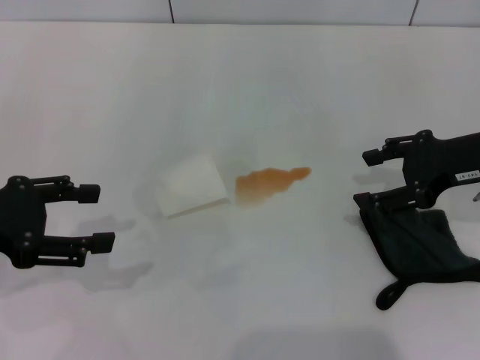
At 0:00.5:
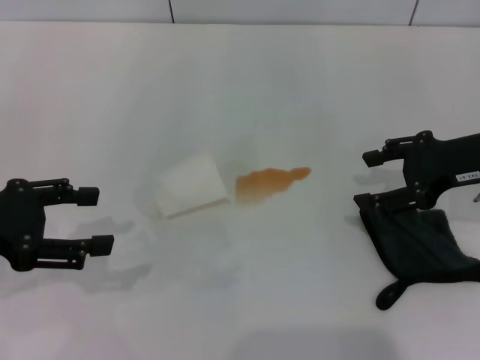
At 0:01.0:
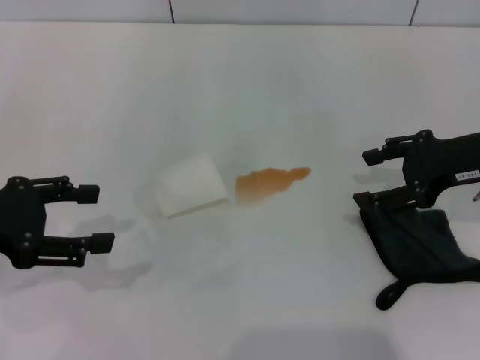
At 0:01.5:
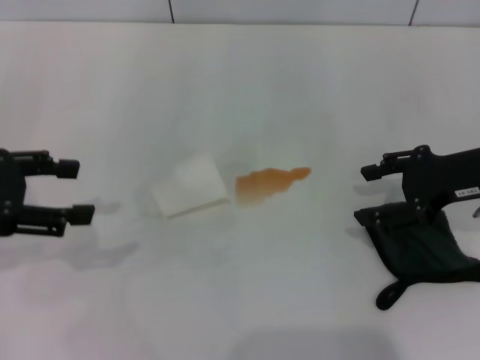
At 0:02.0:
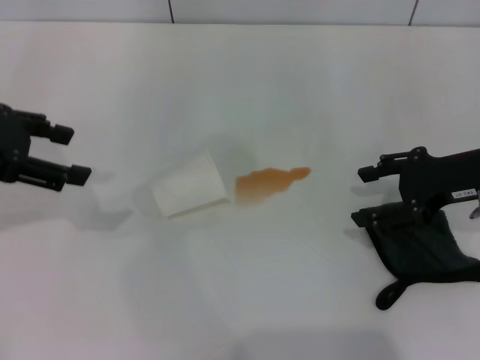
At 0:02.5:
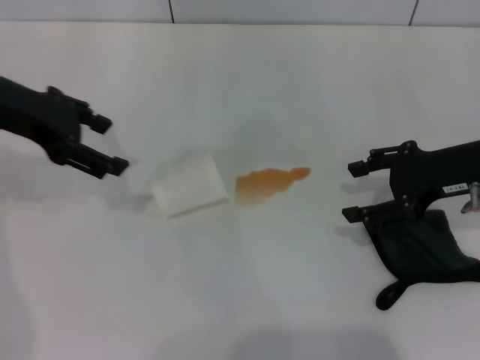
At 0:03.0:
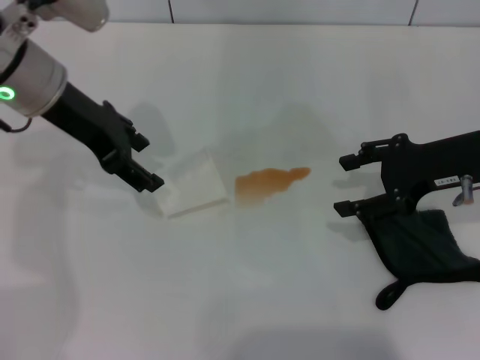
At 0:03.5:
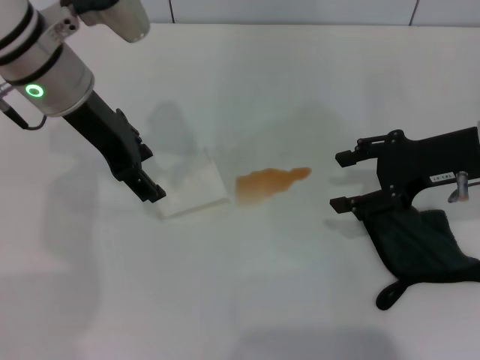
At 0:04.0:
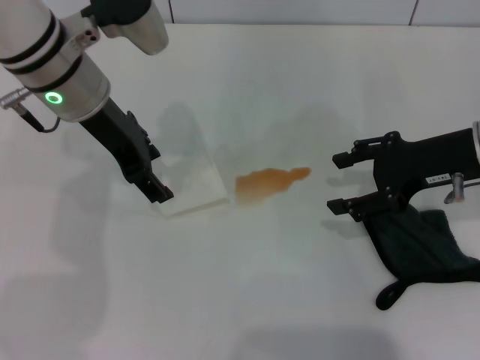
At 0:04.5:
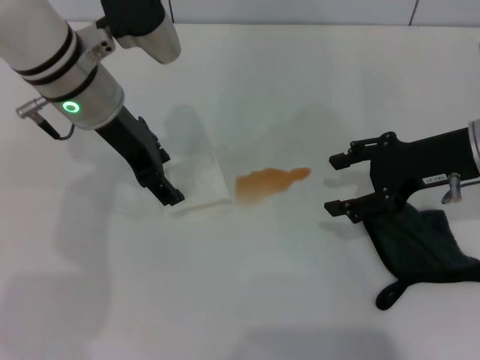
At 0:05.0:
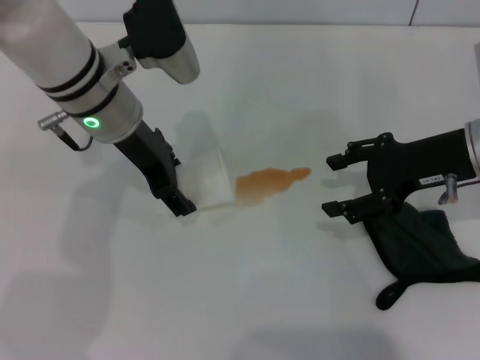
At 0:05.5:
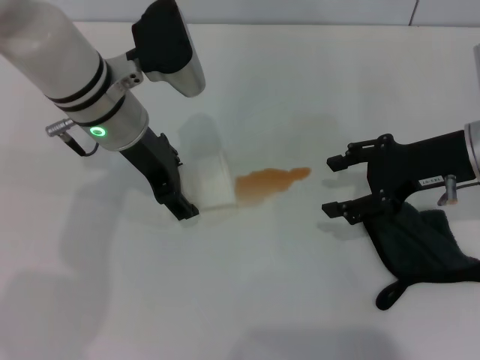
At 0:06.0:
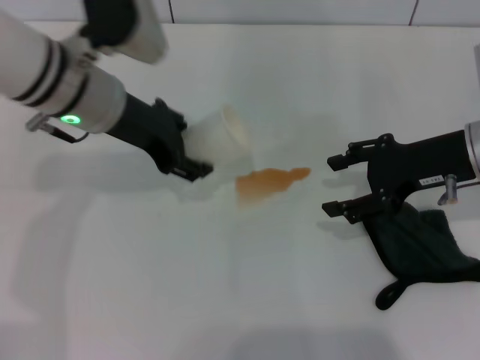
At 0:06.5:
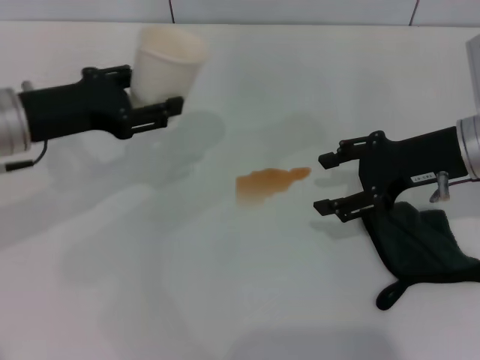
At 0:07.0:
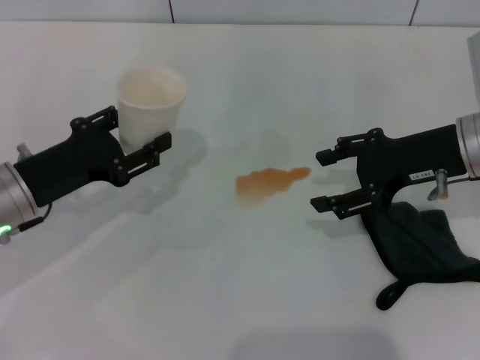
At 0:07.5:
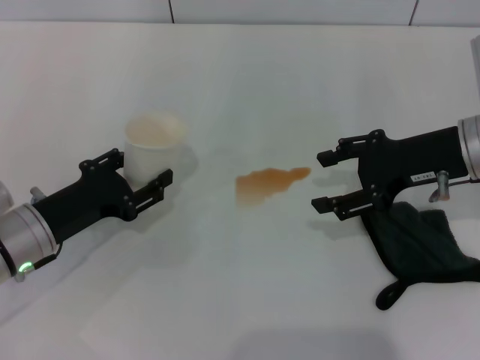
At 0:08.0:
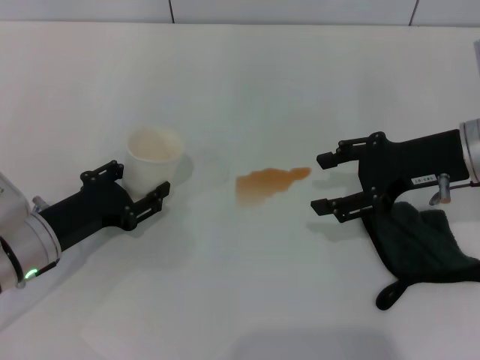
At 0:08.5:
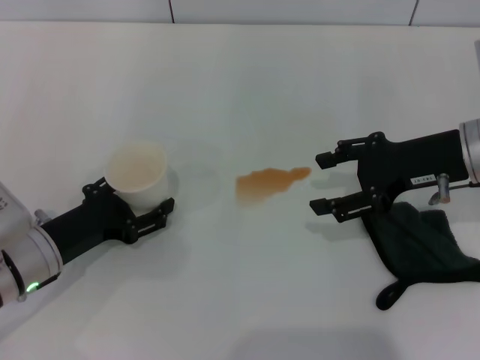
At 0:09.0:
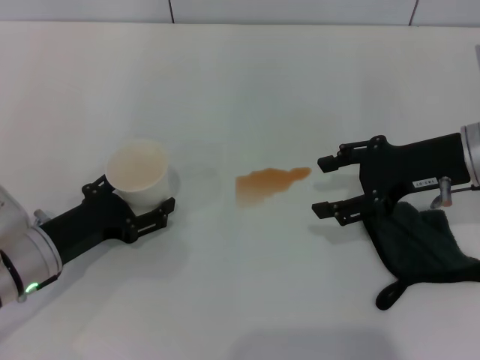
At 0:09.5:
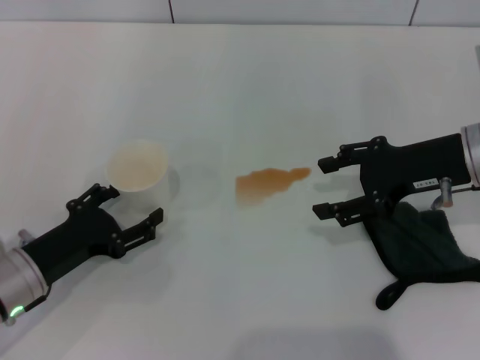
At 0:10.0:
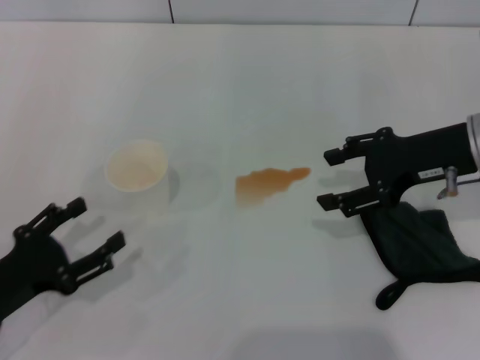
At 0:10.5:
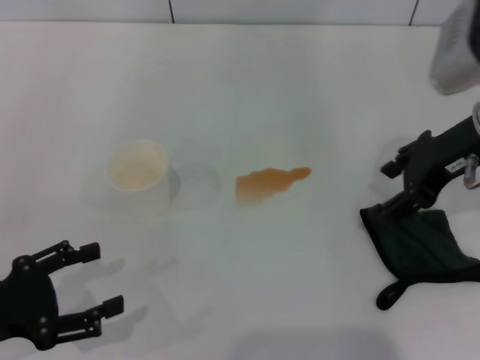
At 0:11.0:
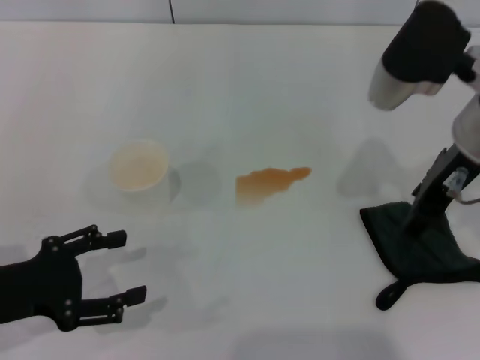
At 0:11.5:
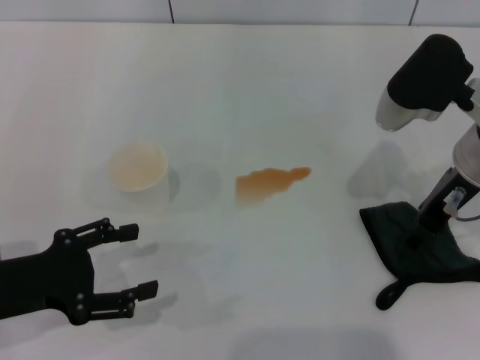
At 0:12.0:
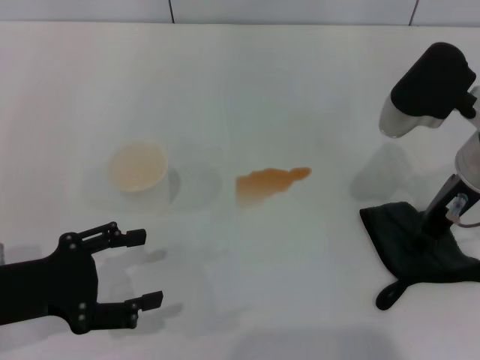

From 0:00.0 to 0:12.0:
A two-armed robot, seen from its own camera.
Step, from 0:00.0 to 0:05.0: Grasp the paper cup with the left gripper.
Step, from 0:06.0 to 0:09.5: Stand the paper cup upright with the left gripper.
From 0:00.0 to 0:02.0: The left gripper heads forward and upward, covering approximately 10 cm.
From 0:02.0 to 0:04.0: The left gripper heads to the right and forward, covering about 15 cm.
From 0:04.0 to 0:06.0: The left gripper closes its fingers.
From 0:06.0 to 0:08.0: The left gripper moves downward, backward and to the left, approximately 20 cm.
From 0:08.0 to 0:10.0: The left gripper goes about 10 cm backward and to the left, and opens.
From 0:10.0 to 0:12.0: The left gripper travels upward by approximately 5 cm.

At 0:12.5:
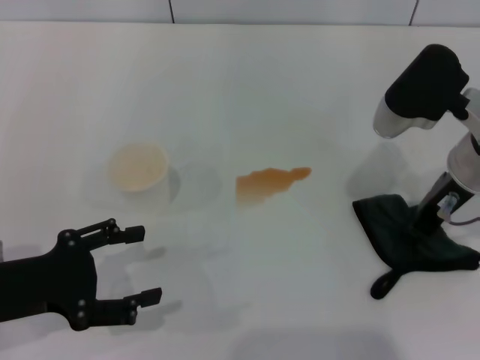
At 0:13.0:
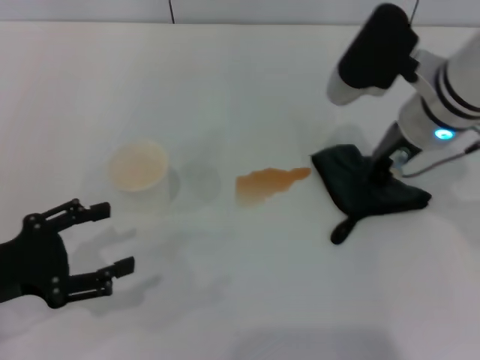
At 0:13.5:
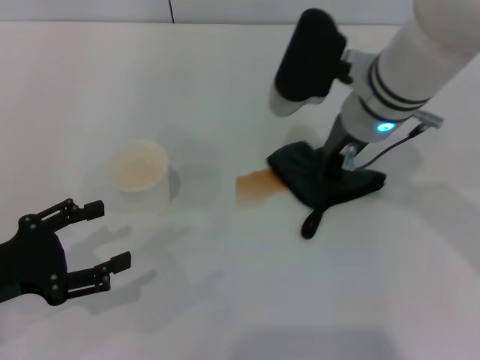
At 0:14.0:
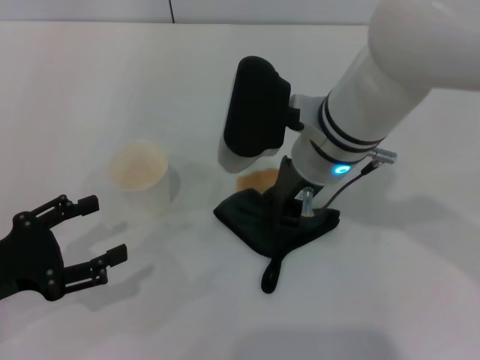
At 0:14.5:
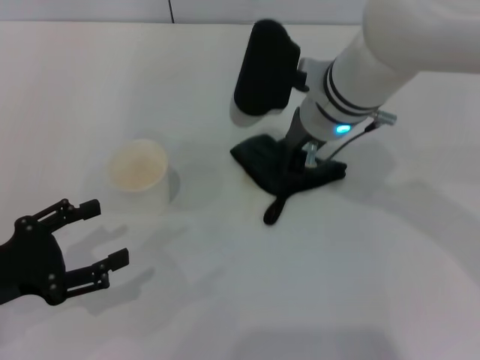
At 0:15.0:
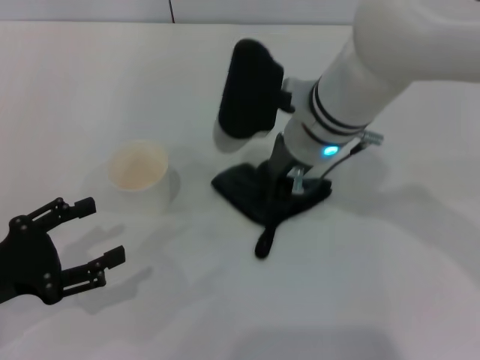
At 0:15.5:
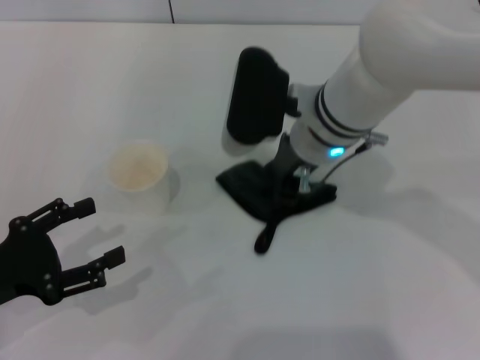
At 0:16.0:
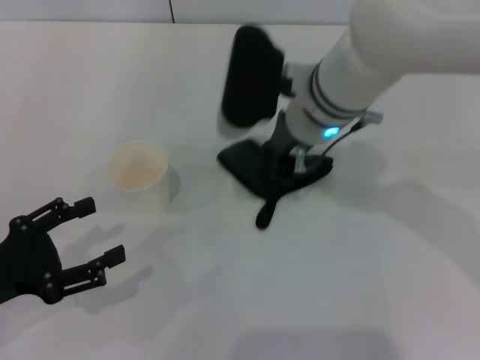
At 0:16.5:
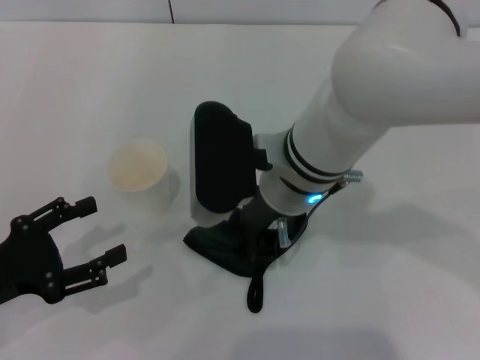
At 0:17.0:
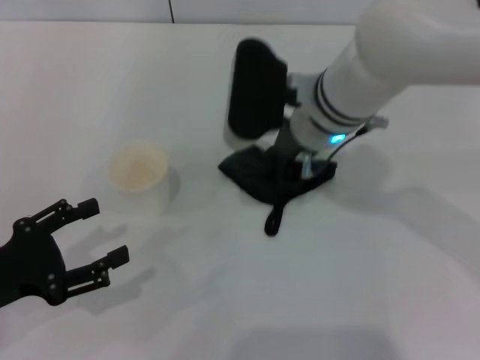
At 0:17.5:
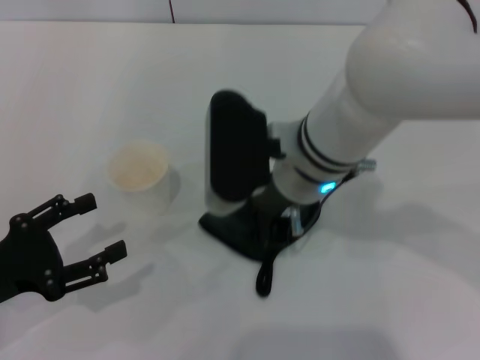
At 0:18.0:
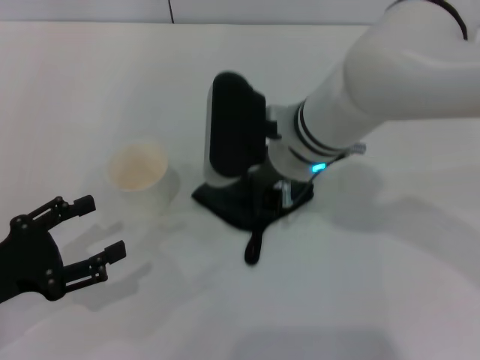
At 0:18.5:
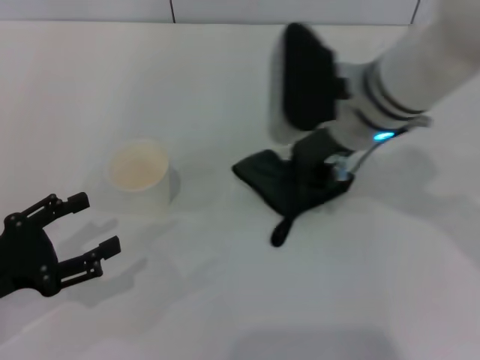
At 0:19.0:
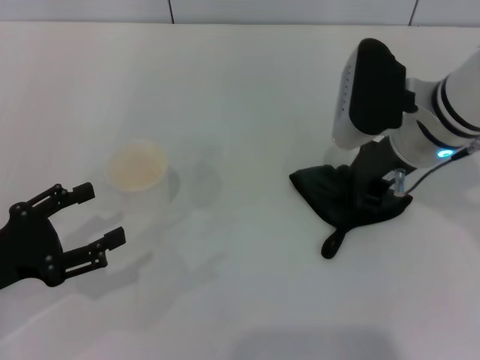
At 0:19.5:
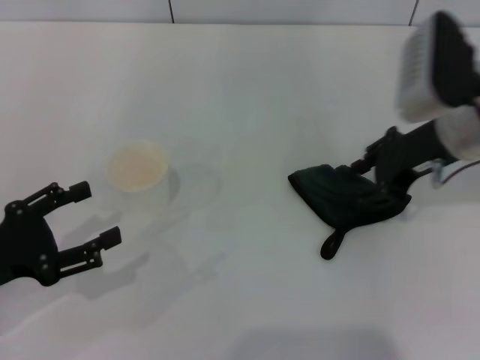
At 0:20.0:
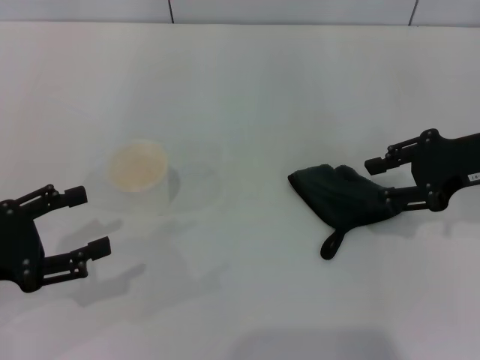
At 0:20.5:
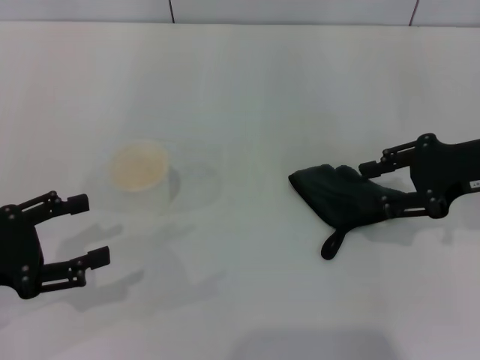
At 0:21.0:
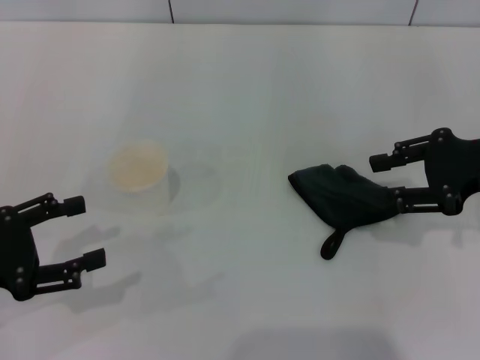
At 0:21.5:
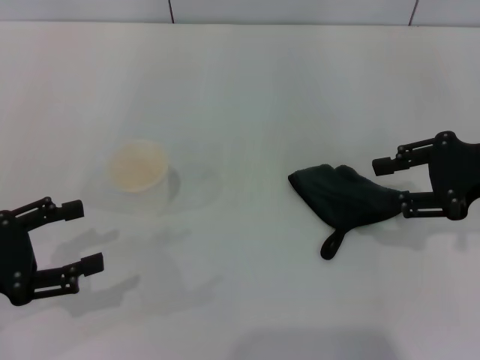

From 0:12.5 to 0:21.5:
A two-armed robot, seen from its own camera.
Step, from 0:12.5 to 0:18.0: Wipe the stains off the table with the right gripper.
Step, from 0:18.5 to 0:19.5: Place the rag on the table with the right gripper.
From 0:12.5 to 0:14.5: The right gripper is displaced to the left and forward by roughly 15 cm.
From 0:17.0 to 0:19.5: The right gripper heads to the right, covering some 15 cm, and opens its fingers.
From 0:19.5 to 0:21.5: The right gripper moves to the right, roughly 10 cm.
